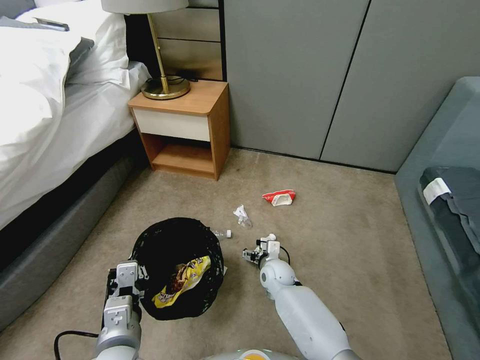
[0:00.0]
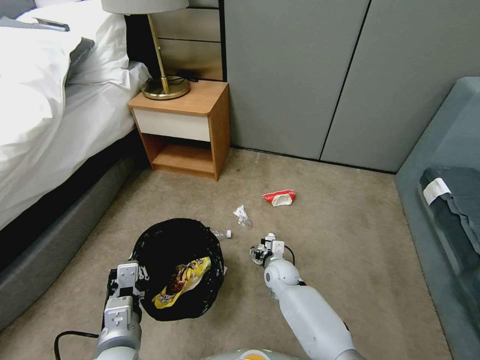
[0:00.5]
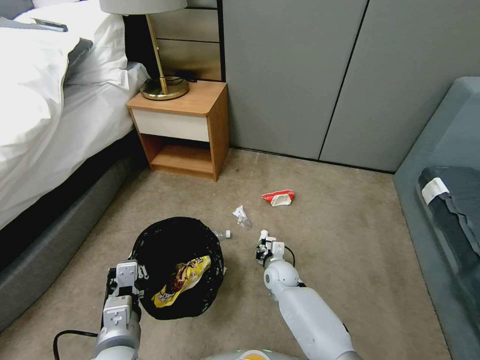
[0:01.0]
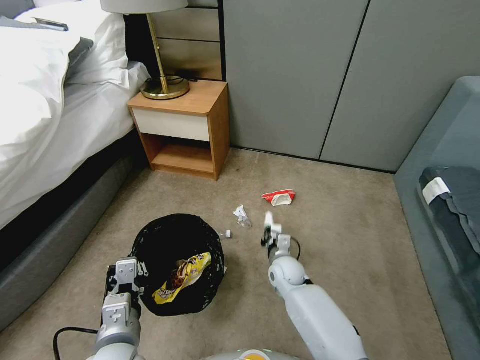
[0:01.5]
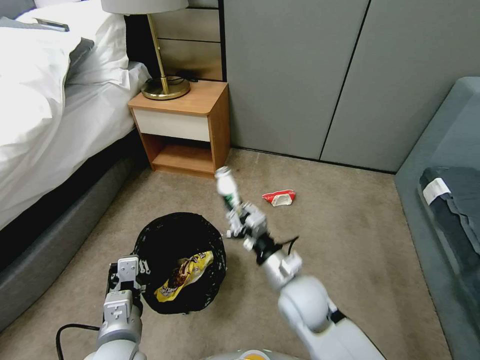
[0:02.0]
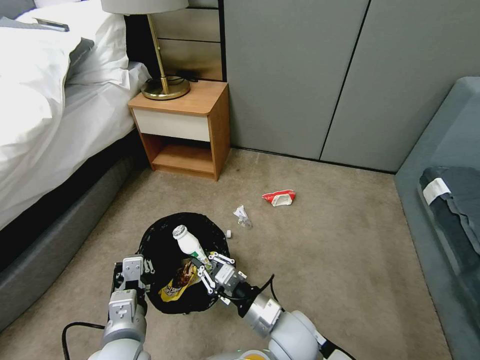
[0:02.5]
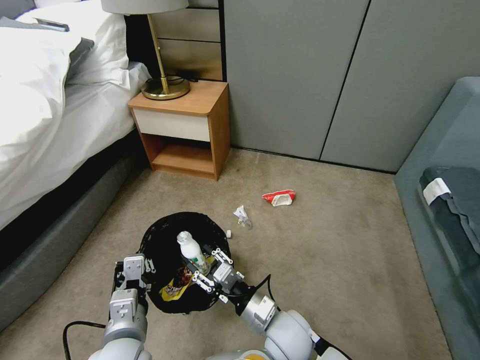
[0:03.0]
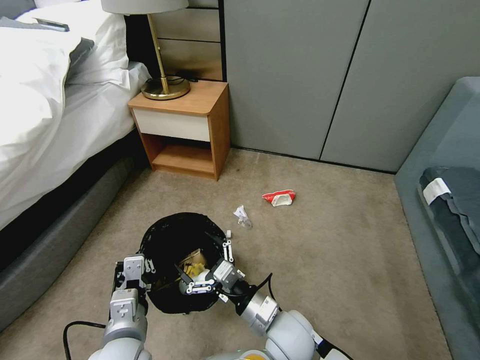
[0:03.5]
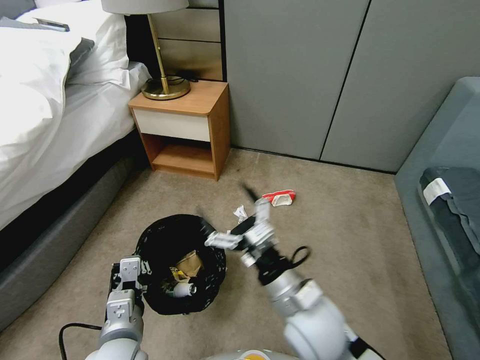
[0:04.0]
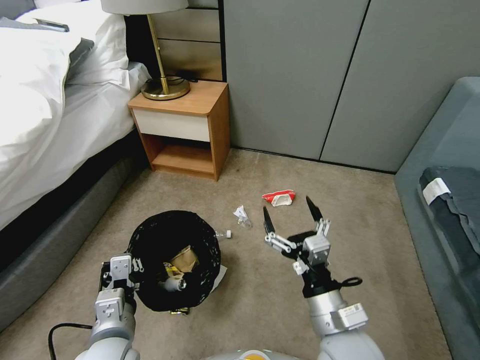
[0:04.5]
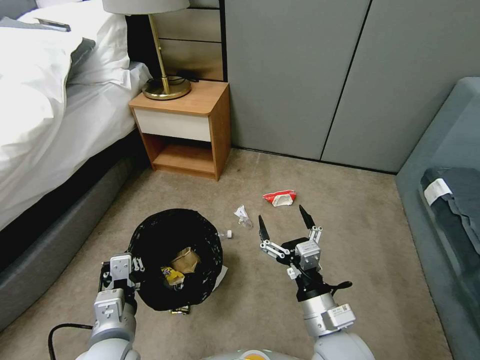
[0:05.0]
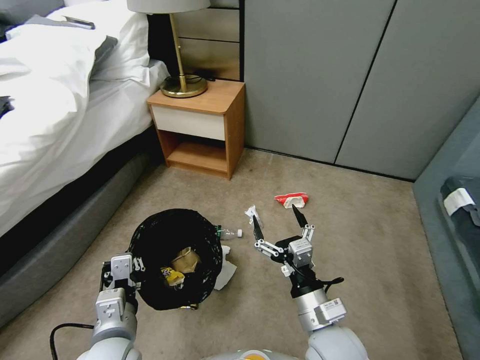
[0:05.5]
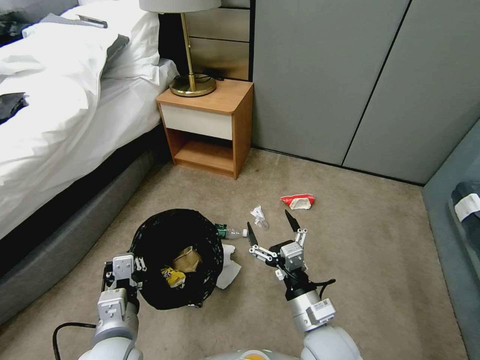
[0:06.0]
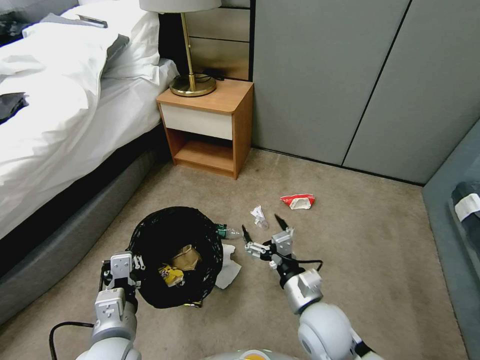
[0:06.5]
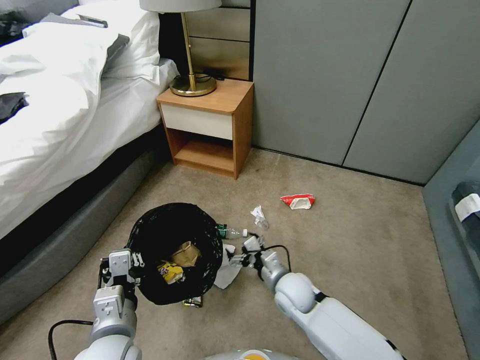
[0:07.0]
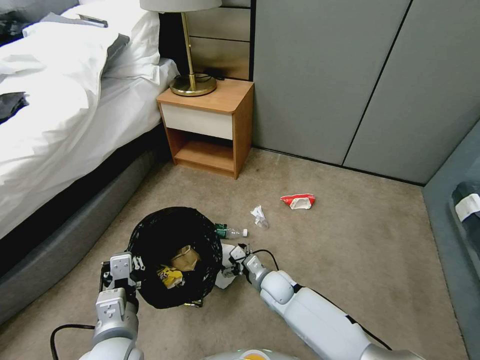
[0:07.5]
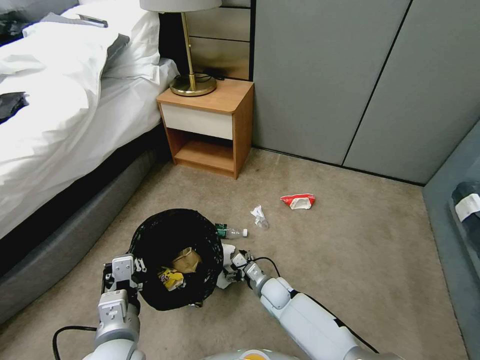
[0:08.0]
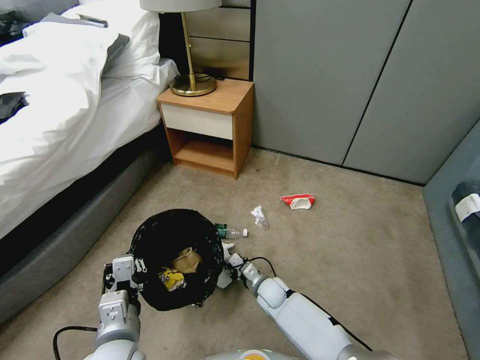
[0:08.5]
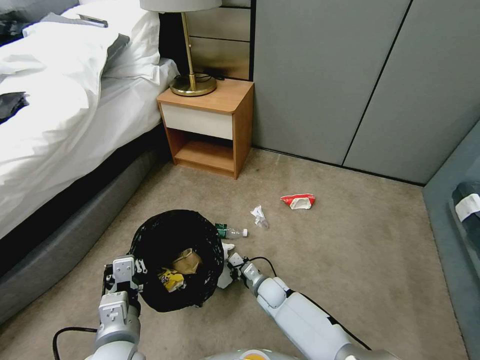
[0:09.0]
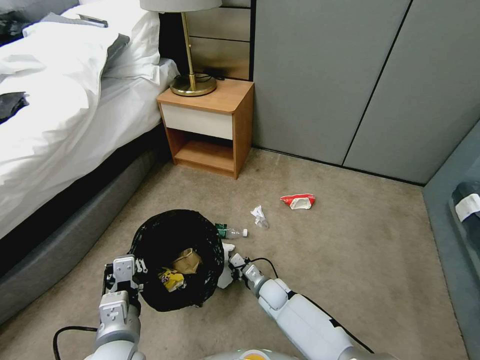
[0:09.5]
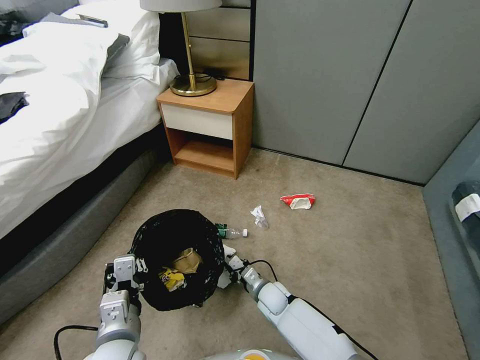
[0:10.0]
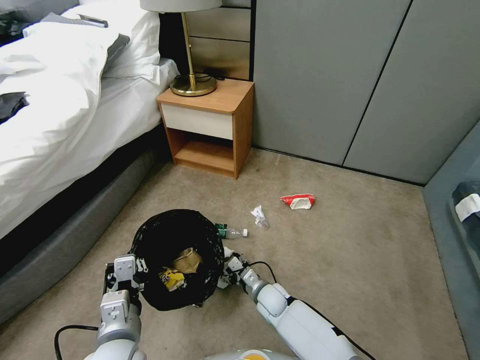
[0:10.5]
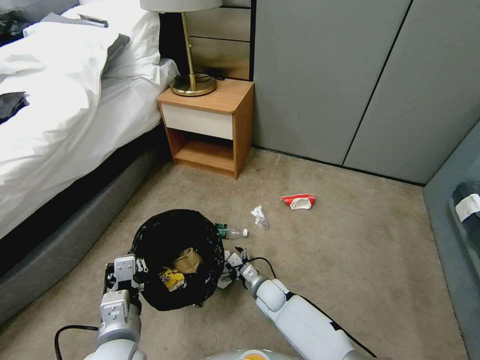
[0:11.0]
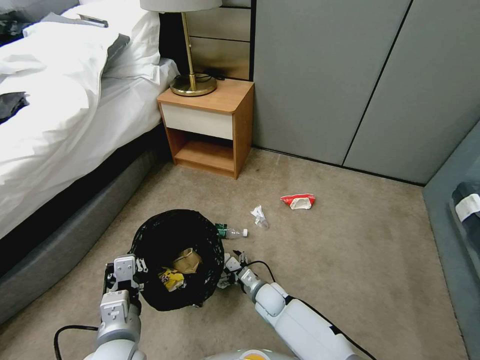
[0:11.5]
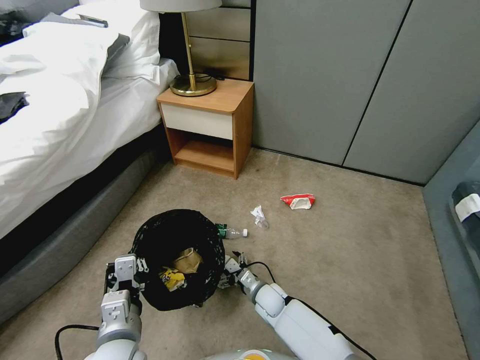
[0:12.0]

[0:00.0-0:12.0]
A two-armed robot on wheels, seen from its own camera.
Task of the whole recording: Pick up the trash bin, then pick up the garbage from the floor and place it into the trash bin.
0:00.0 to 0:02.0: The right gripper heads upward and backward, covering approximately 20 cm, and closes up.
0:02.0 to 0:04.0: The right gripper moves some 5 cm, and opens up.
0:04.0 to 0:06.0: The right gripper moves downward, about 5 cm.
0:06.0 to 0:08.0: The right gripper goes approximately 25 cm downward and forward.
0:08.0 to 0:10.0: The right gripper closes up.
0:10.0 to 0:12.0: The right gripper opens.

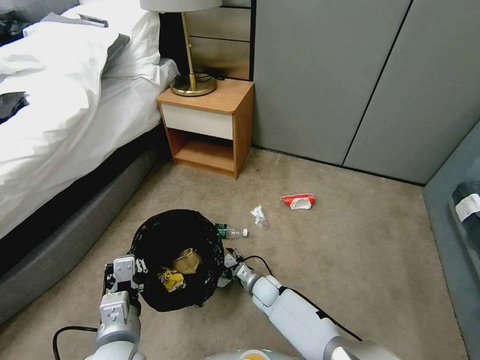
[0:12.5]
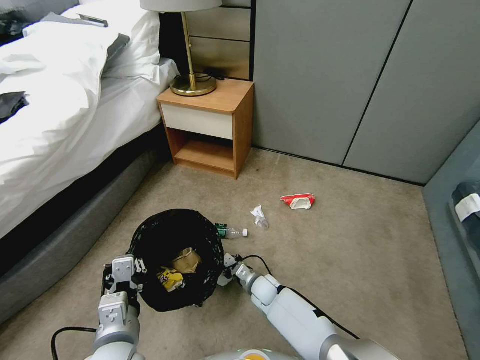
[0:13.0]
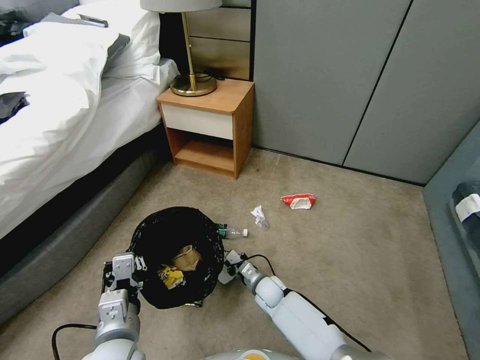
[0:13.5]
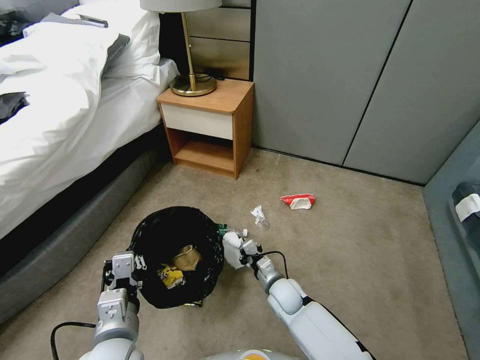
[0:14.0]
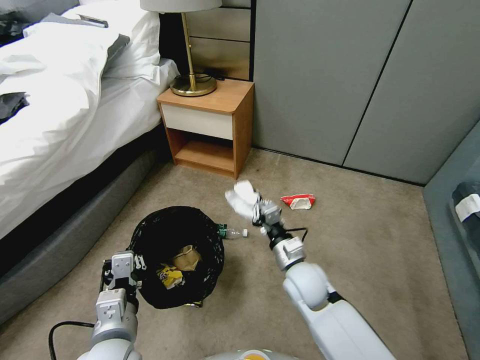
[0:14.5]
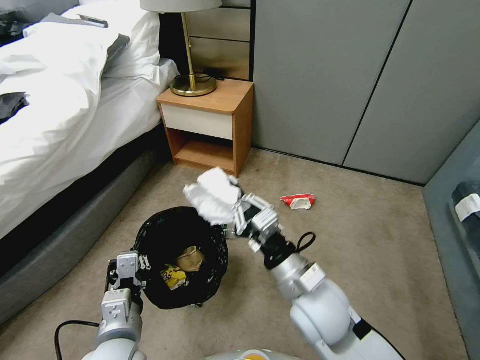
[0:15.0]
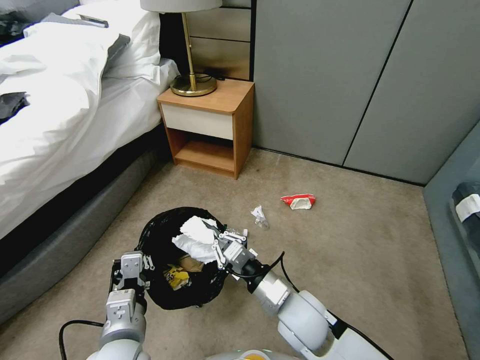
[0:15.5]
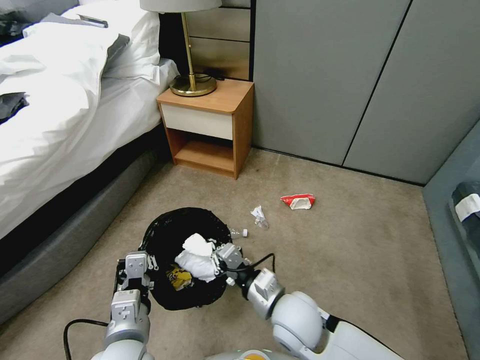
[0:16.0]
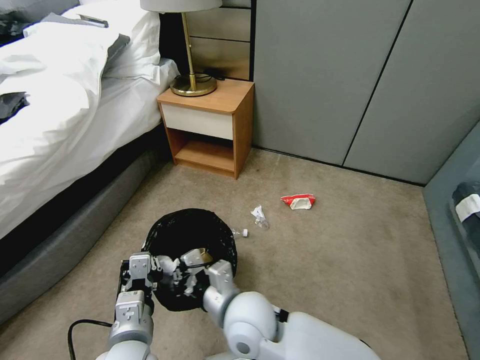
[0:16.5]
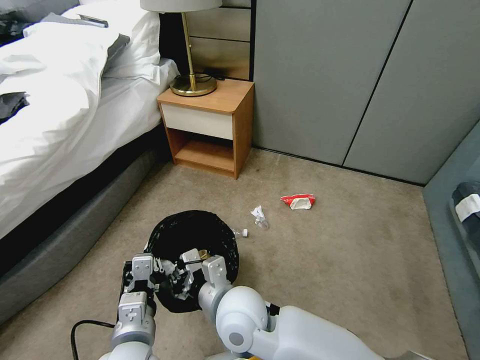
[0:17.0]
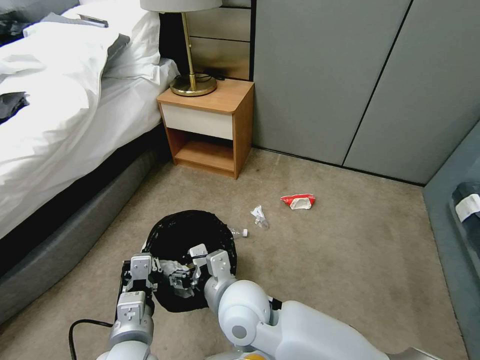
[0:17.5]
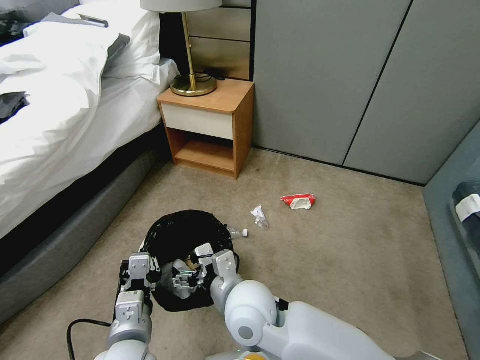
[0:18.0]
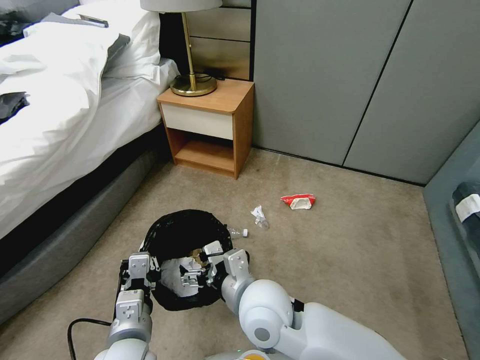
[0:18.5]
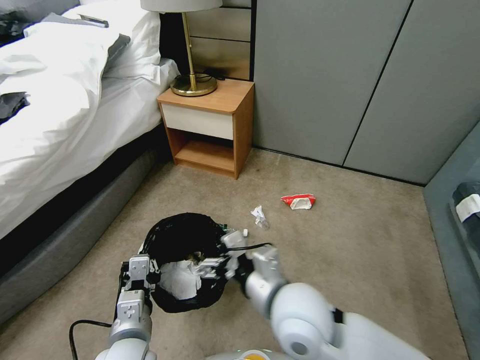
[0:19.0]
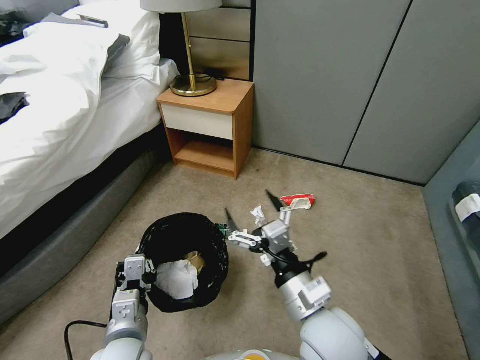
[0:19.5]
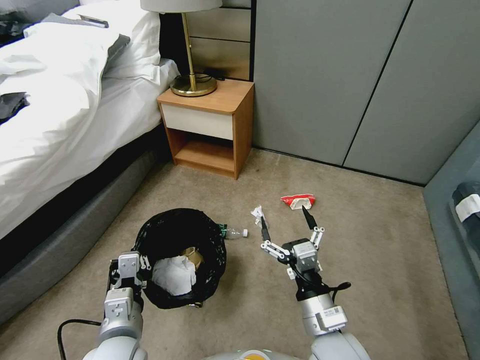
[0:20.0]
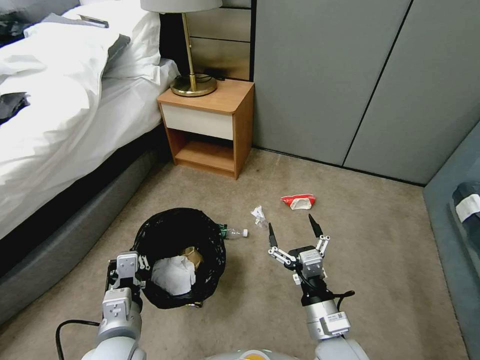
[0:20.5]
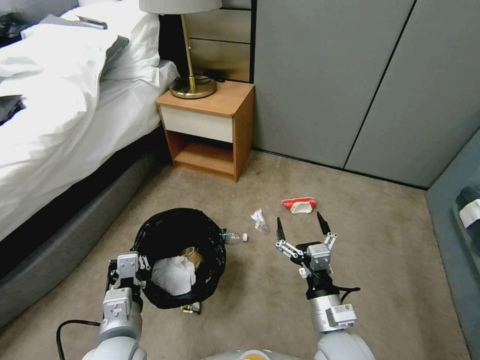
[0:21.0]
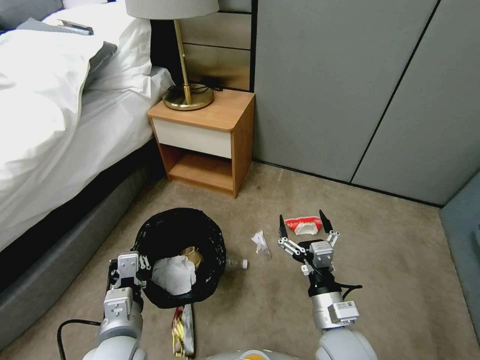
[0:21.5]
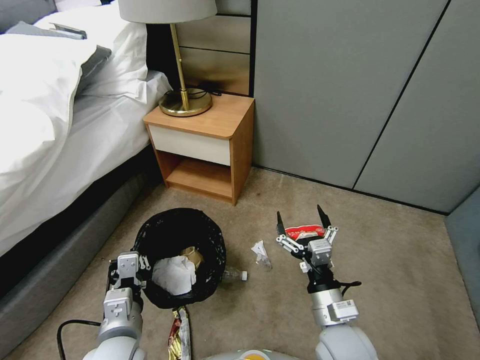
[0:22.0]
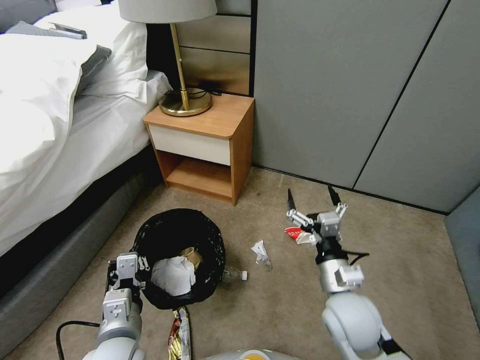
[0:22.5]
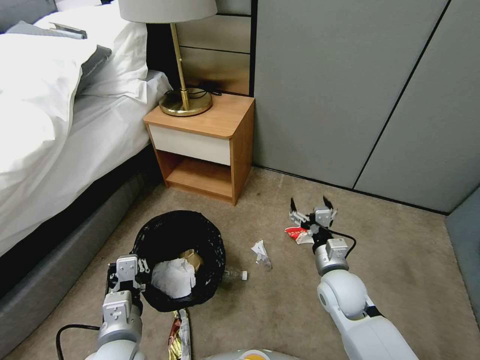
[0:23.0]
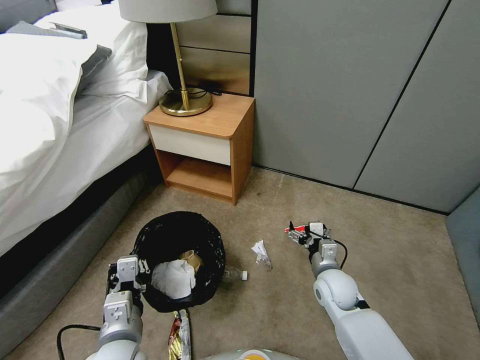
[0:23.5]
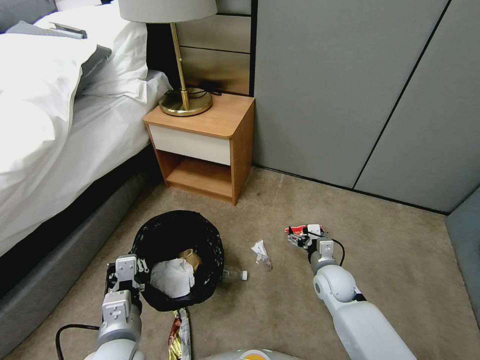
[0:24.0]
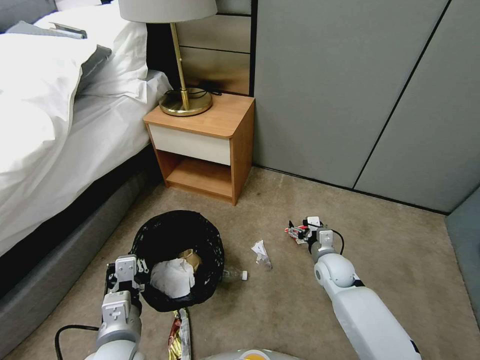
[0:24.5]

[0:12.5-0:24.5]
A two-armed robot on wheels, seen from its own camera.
Task of the whole recording: Pick up the trash bin, then pick up the garbage from the floor and place it into the trash bin.
0:12.5 to 0:14.5: The right gripper heads upward, covering about 20 cm, and closes up.
0:14.5 to 0:16.5: The right gripper is displaced to the left, backward and upward by some 20 cm.
0:16.5 to 0:18.5: The right gripper opens its fingers.
0:18.5 to 0:20.5: The right gripper moves to the right, downward and backward, roughly 20 cm.
0:20.5 to 0:22.5: The right gripper moves forward, approximately 5 cm.
0:22.5 to 0:24.5: The right gripper heads forward and downward, covering some 20 cm.

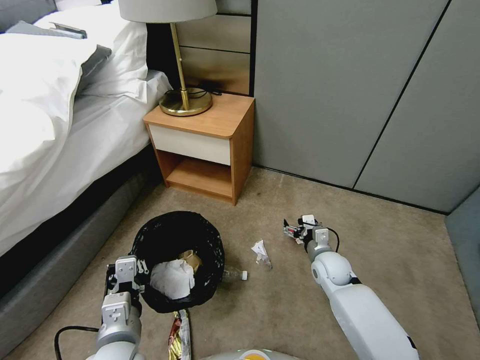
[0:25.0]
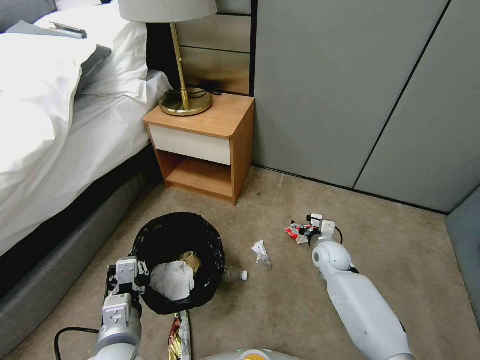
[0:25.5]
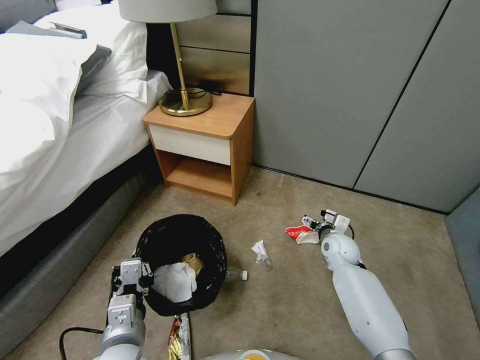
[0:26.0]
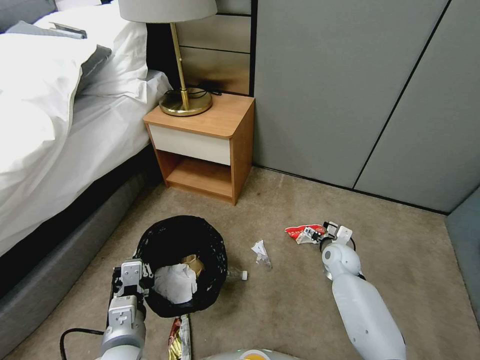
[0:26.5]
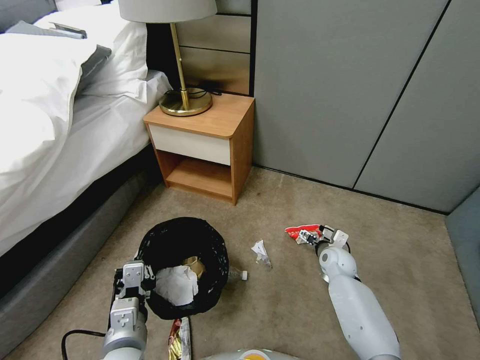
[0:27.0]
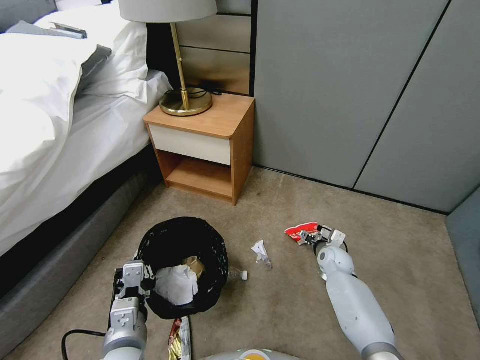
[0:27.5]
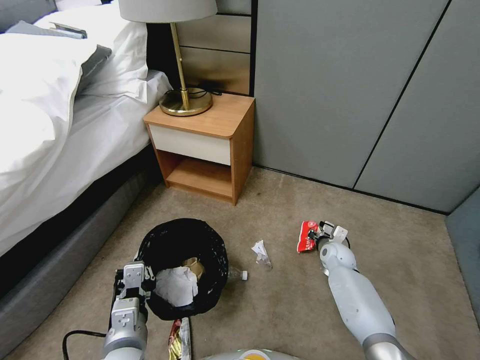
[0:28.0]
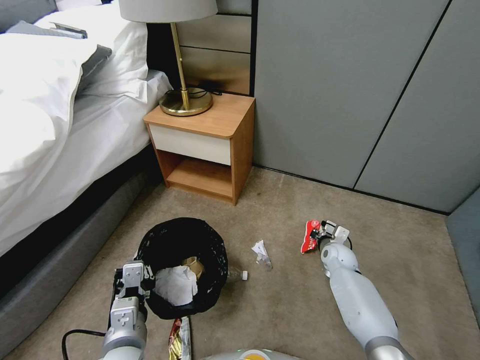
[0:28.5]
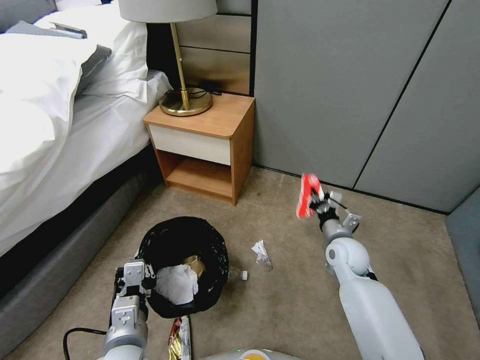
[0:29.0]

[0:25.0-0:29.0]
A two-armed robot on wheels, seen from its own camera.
Task of the whole recording: Pick up the trash bin, then pick up the garbage from the floor and place it into the trash bin.
0:25.0 to 0:27.0: The right gripper moves some 5 cm.
0:27.0 to 0:29.0: The right gripper travels upward by about 10 cm, and closes its fingers.
